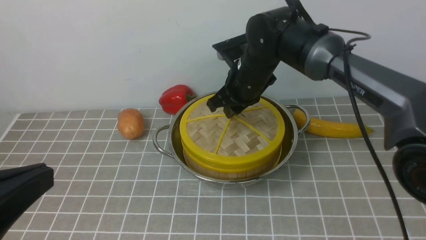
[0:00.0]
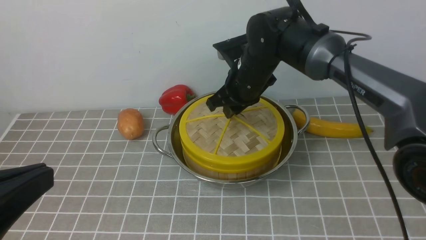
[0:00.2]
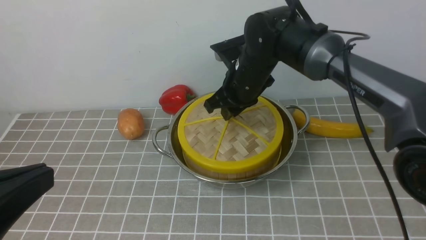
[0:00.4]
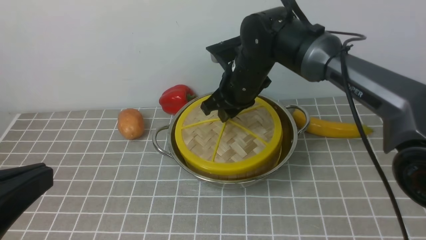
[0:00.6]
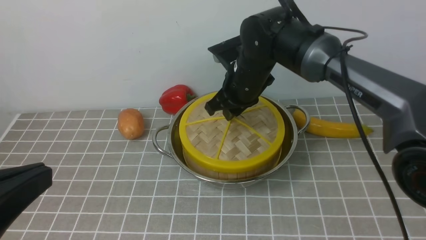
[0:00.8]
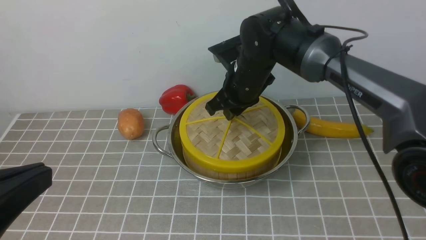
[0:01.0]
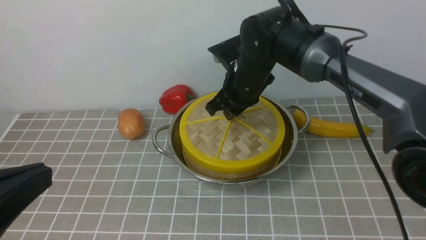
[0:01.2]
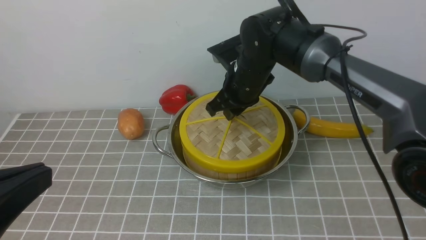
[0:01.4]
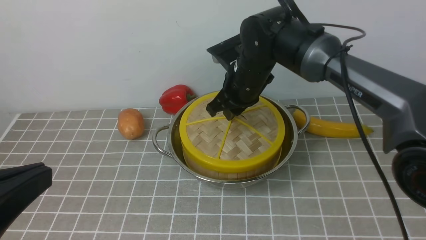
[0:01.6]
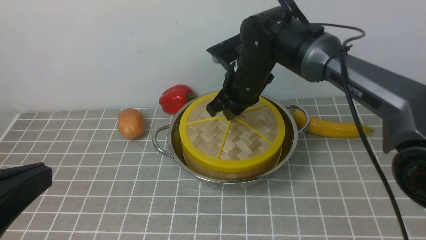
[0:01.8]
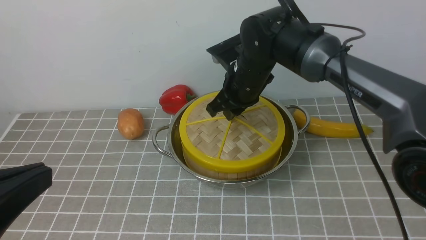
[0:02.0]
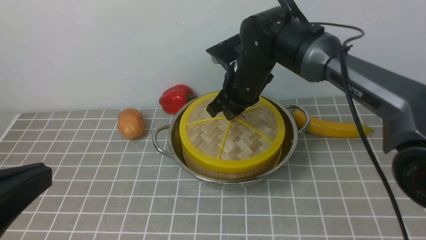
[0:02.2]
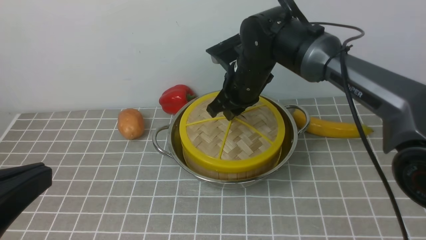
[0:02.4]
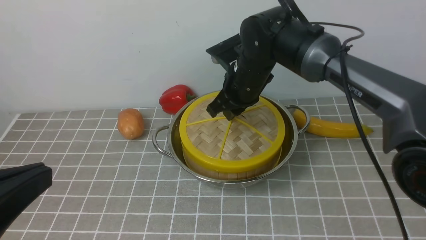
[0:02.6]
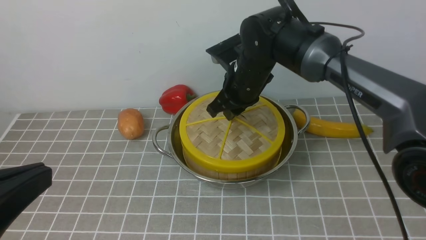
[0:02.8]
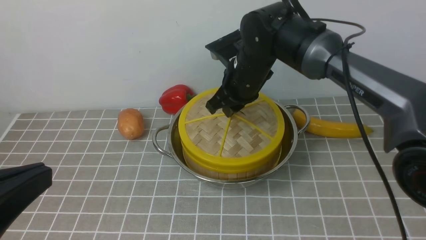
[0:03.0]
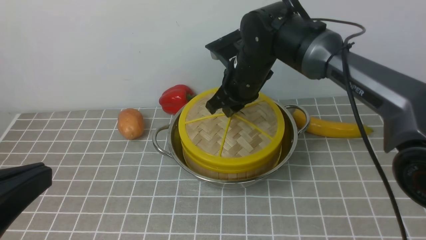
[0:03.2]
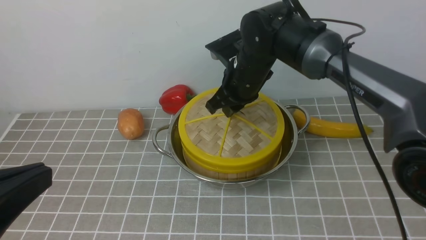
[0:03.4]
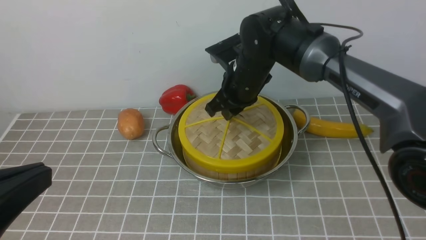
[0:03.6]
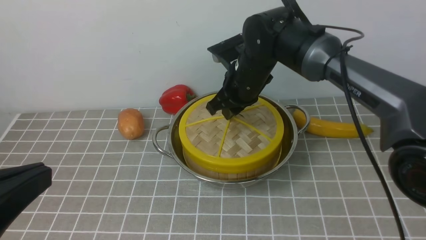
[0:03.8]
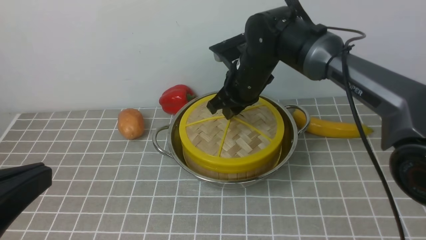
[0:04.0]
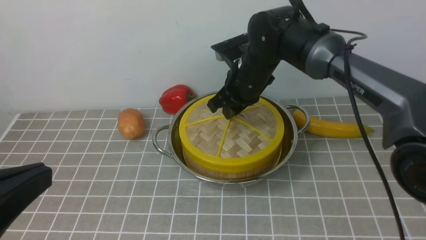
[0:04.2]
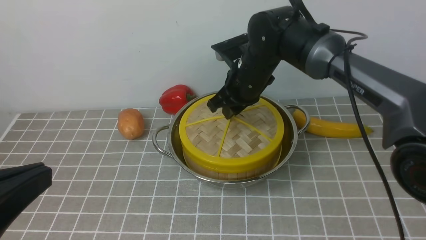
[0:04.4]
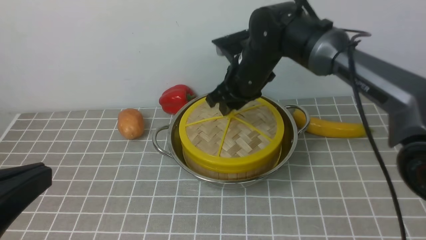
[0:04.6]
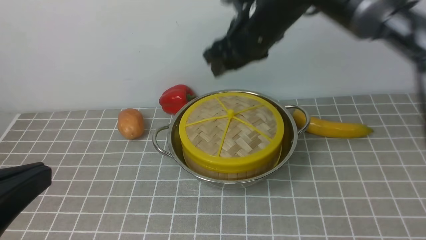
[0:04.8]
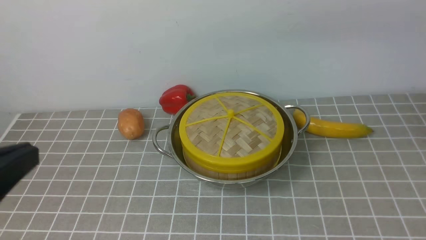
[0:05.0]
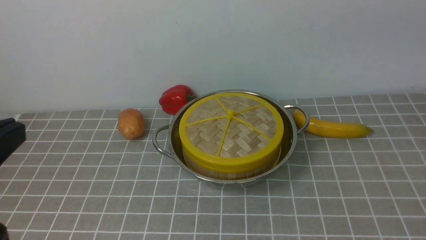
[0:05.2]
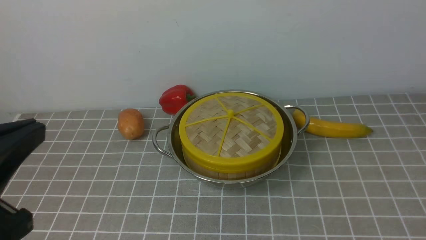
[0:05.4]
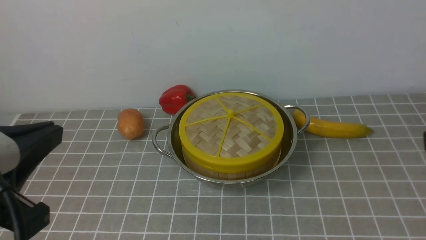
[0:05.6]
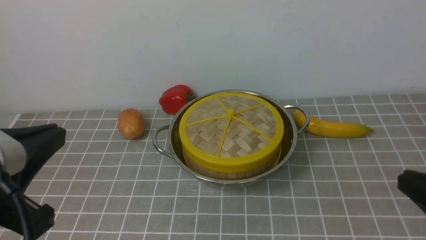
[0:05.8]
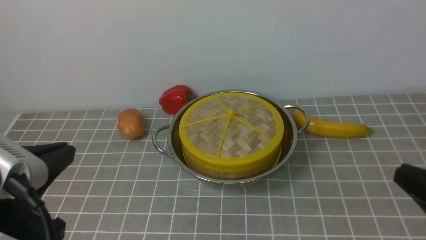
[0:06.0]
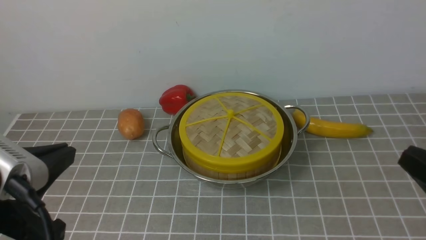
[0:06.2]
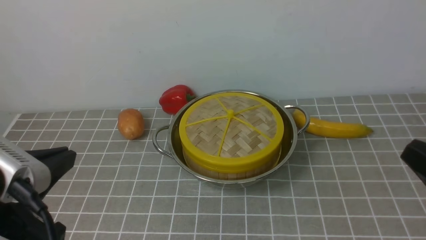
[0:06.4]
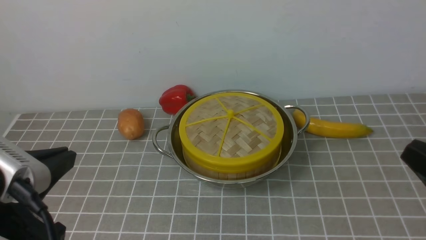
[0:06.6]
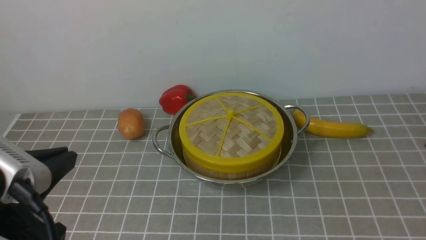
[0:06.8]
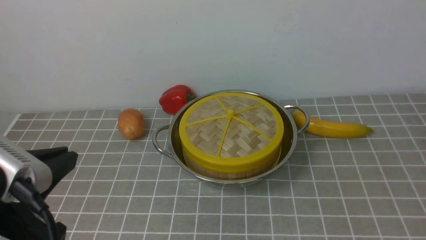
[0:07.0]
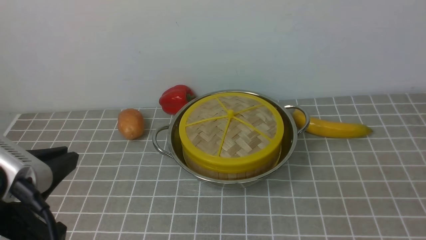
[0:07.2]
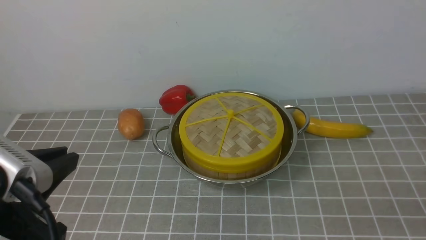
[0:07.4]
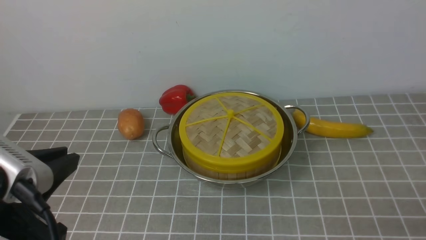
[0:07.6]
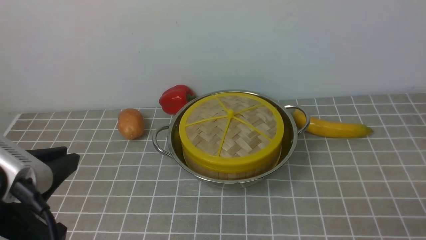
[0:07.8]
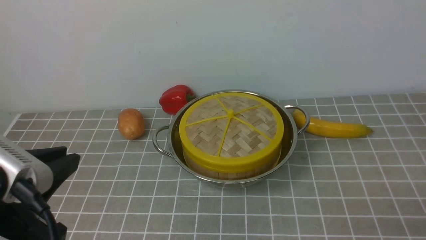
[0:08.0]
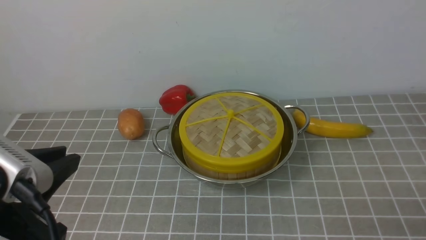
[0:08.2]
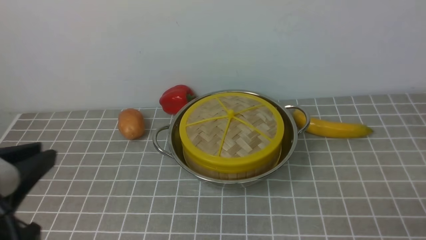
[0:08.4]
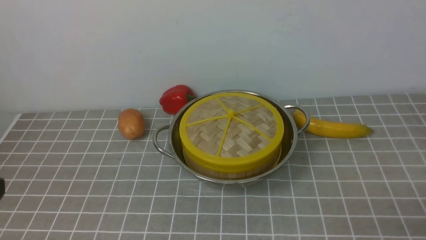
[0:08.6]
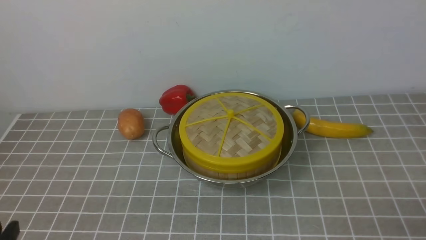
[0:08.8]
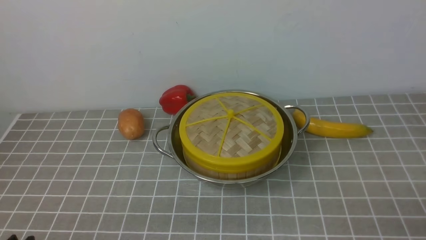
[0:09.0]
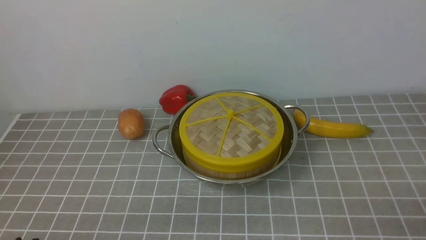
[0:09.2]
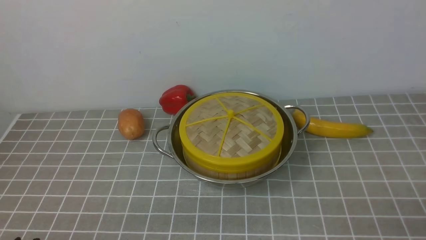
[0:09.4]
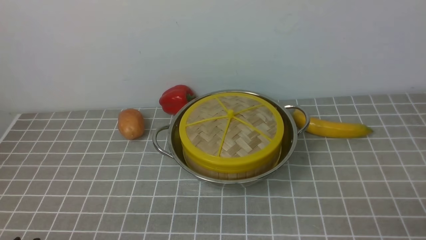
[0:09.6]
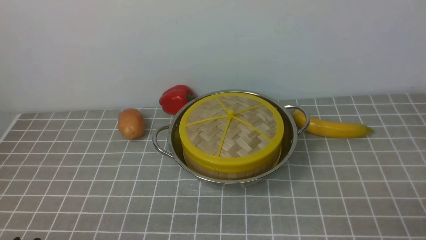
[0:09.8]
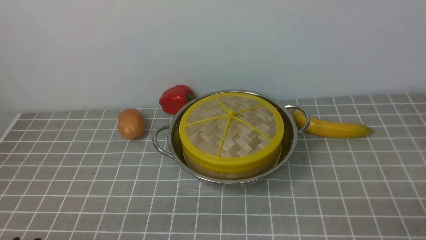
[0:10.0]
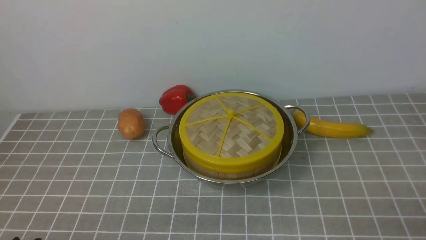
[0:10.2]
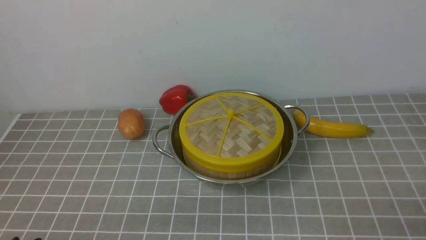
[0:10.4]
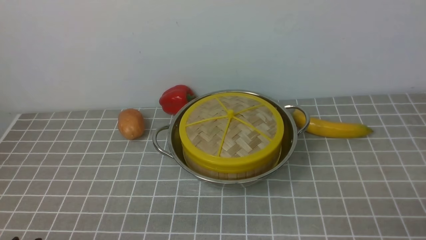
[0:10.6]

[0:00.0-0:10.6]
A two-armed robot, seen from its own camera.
Task of the whole recording: place the steamer in the pot on the grey tablecloth, and put the lid on the steamer.
Step, 0:00.0 to 0:04.6: use the right arm to place the steamer lid on the steamer.
0:00.0 to 0:01.6: The grippers stay close to where they were, moving slightly.
0:01.6 to 0:03.0: The two grippers keep their place.
0:03.0 to 0:04.6: The right gripper opens up.
0:04.6 to 0:06.0: The right gripper goes some 40 cm backward and to the right, and closes its fingers.
0:06.0 to 0:07.6: The right gripper heads downward and to the right, covering roughly 10 cm.
0:07.6 to 0:09.0: The left gripper moves downward, about 15 cm.
